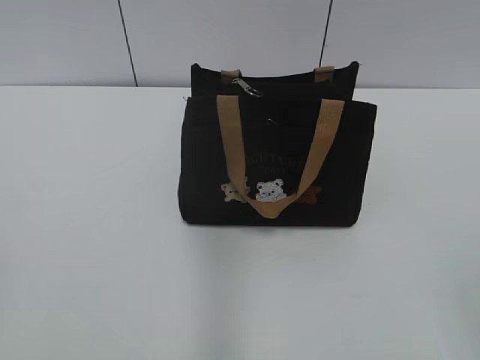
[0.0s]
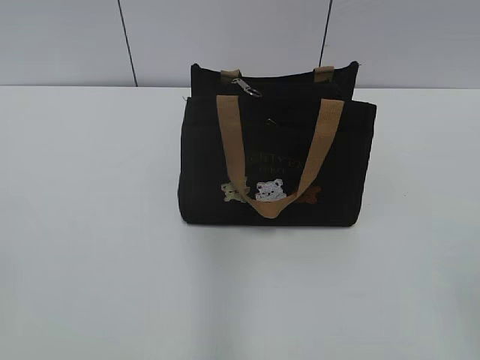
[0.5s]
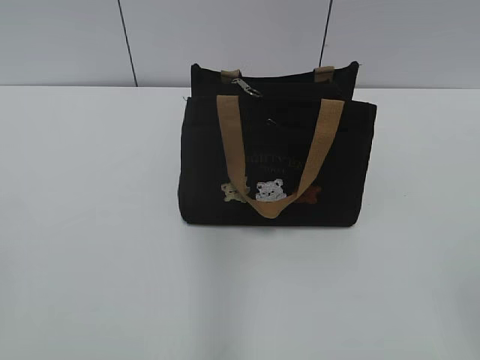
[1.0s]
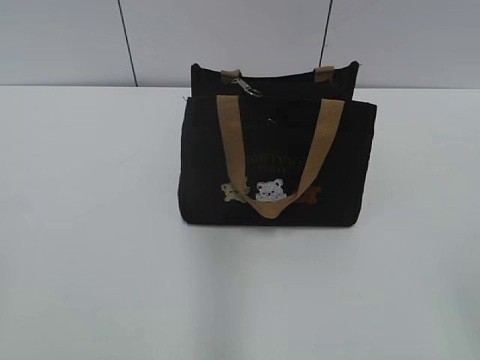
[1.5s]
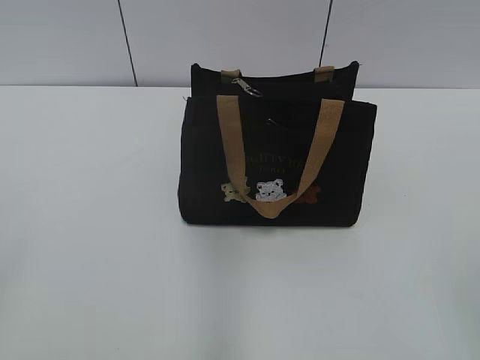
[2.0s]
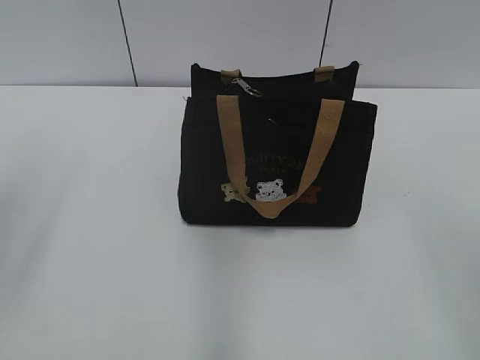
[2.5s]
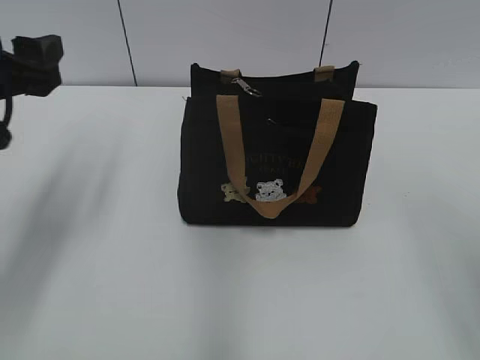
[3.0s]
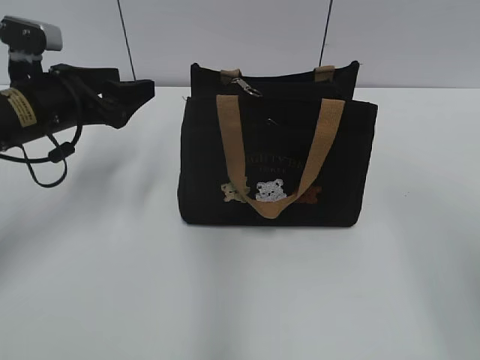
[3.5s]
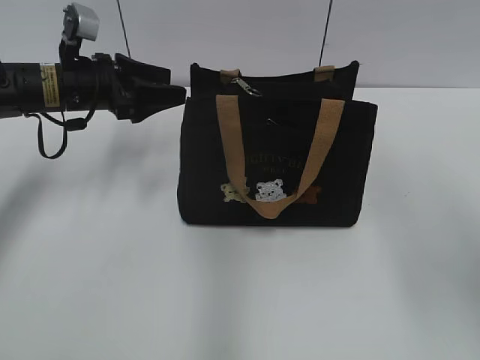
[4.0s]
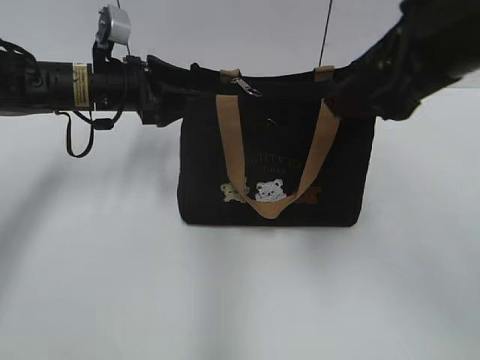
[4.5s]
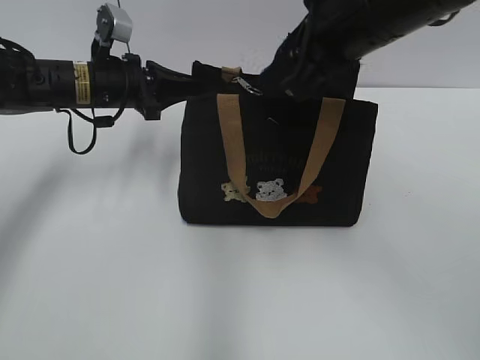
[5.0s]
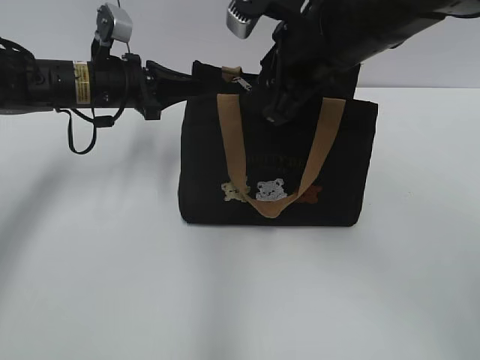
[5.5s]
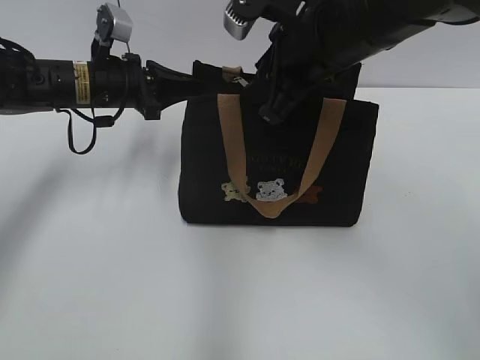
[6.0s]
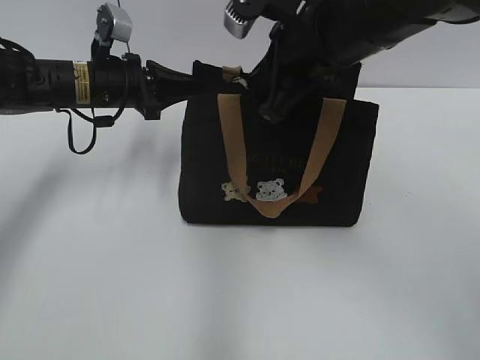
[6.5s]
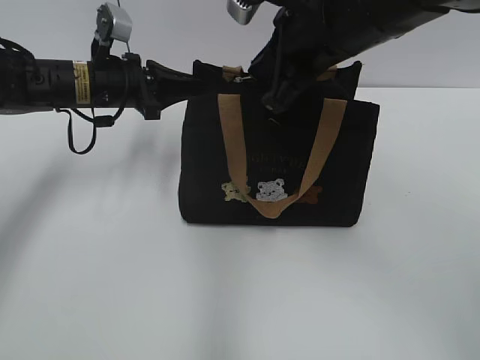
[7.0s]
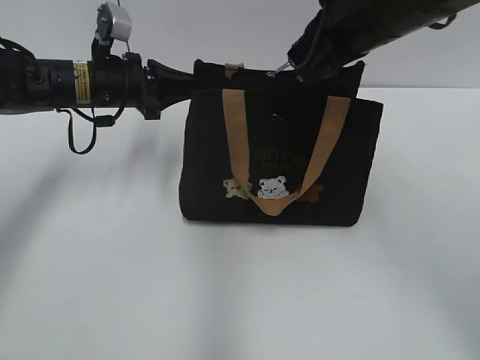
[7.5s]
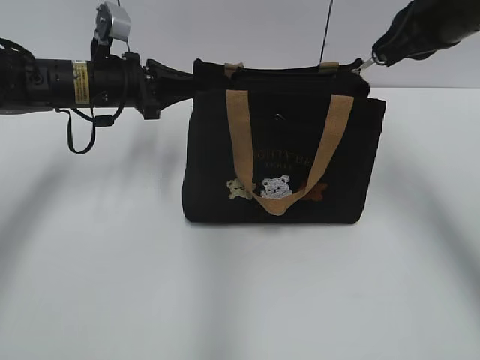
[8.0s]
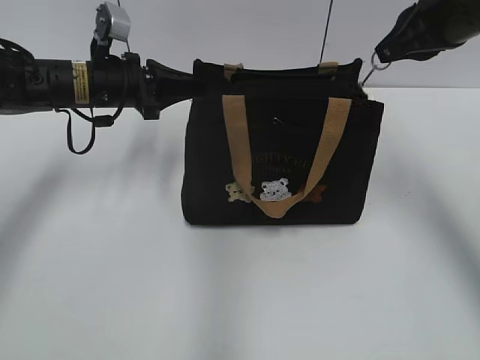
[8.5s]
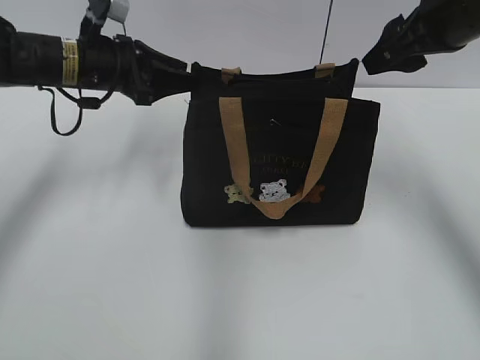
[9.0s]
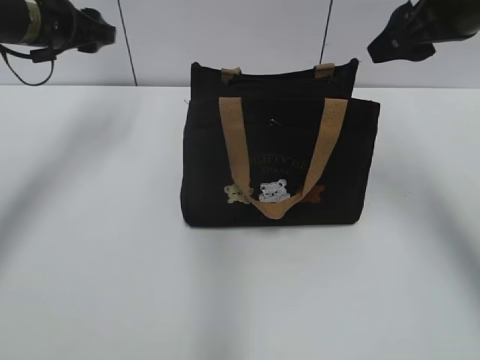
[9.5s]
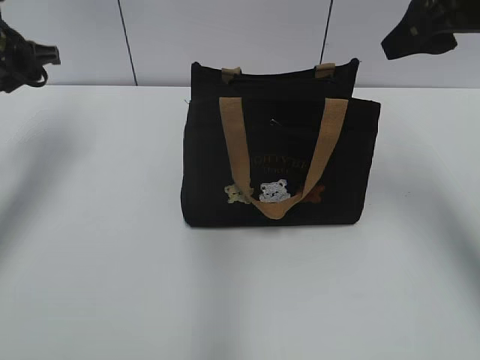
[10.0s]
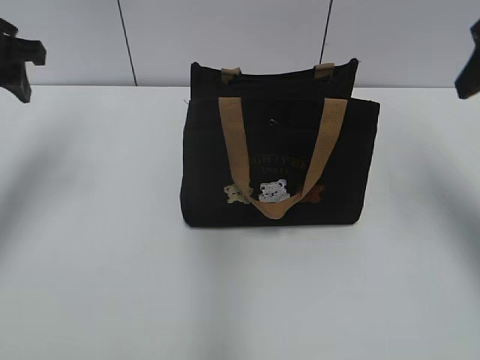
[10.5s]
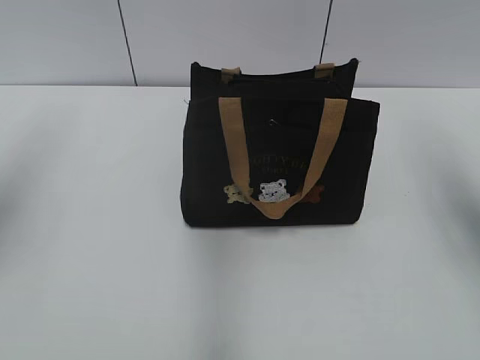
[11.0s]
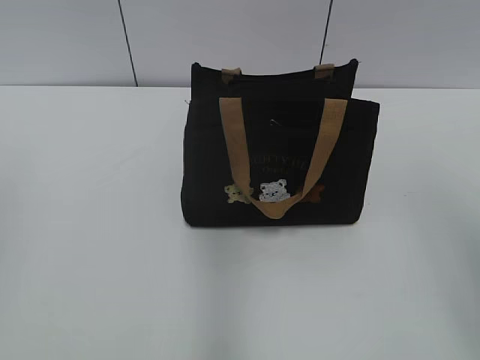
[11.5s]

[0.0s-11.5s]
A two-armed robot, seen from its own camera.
Step, 0.0s to 8.5s: Pull open the zipper with your right hand.
2.0s to 4.0s: The right gripper heads forward and upward, covering some 20 cm. The left gripper shifts approximately 40 cm forward.
4.0s to 6.0s: The left gripper closes. Meanwhile the right gripper shifts approximately 25 cm to the left, forward and downward.
6.0s to 7.5s: The right gripper ends up approximately 5 cm from where it was, and closes up.
7.5s to 9.5s: The left gripper heads upward and to the left, covering about 10 cm, and opens up. The right gripper shifts roughly 10 cm to the right, and opens up.
9.5s to 11.5s: The left gripper heads backward, covering about 35 cm, while the right gripper shifts roughly 20 cm backward.
